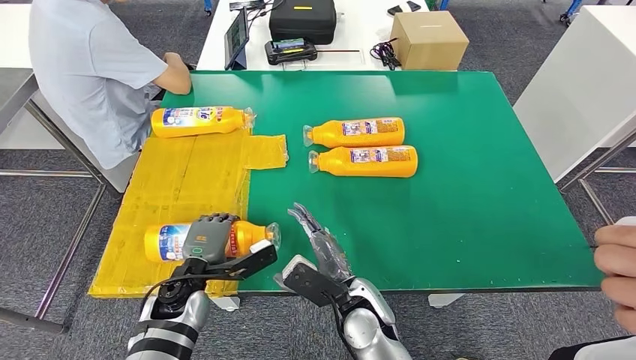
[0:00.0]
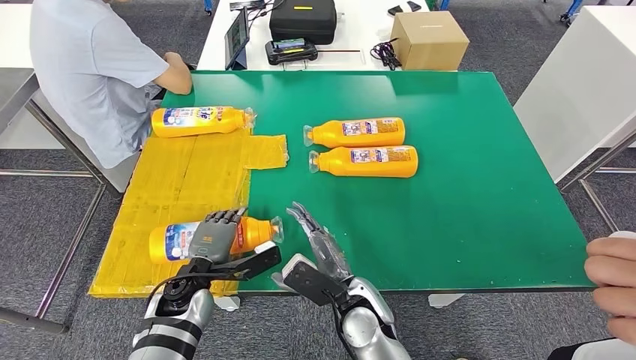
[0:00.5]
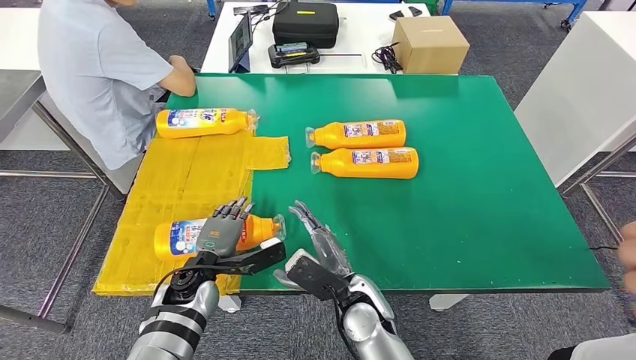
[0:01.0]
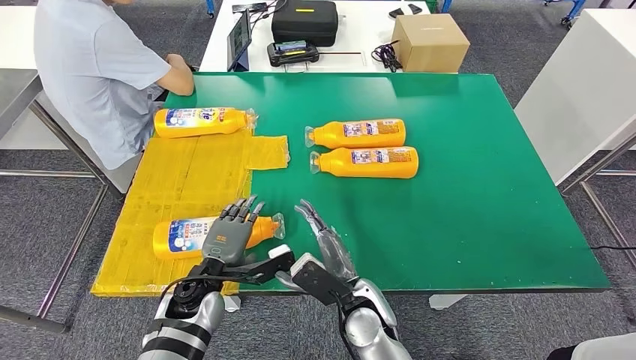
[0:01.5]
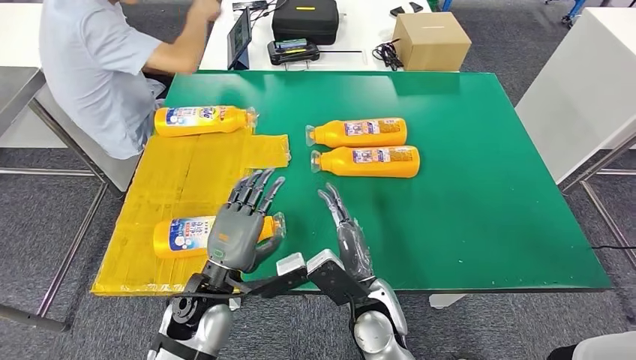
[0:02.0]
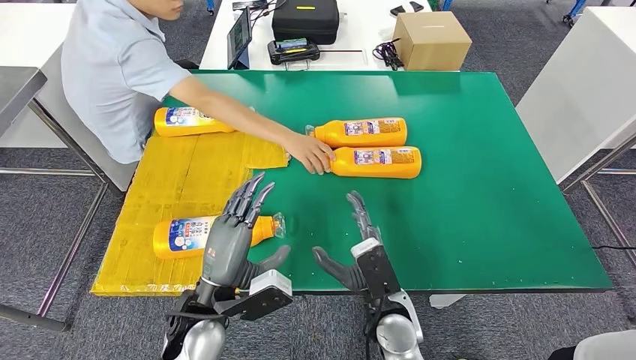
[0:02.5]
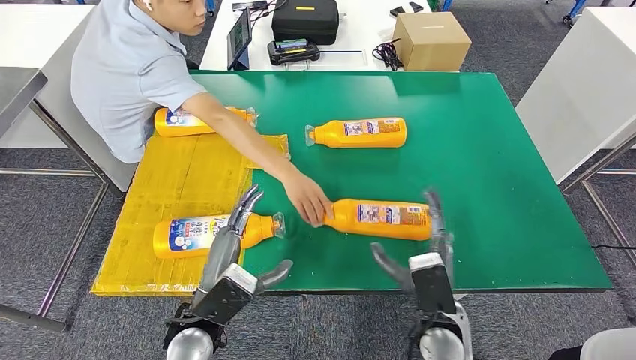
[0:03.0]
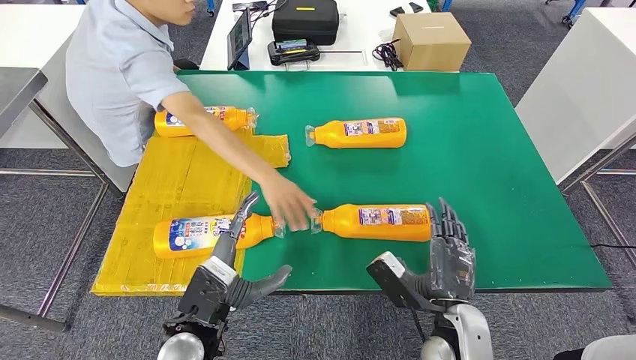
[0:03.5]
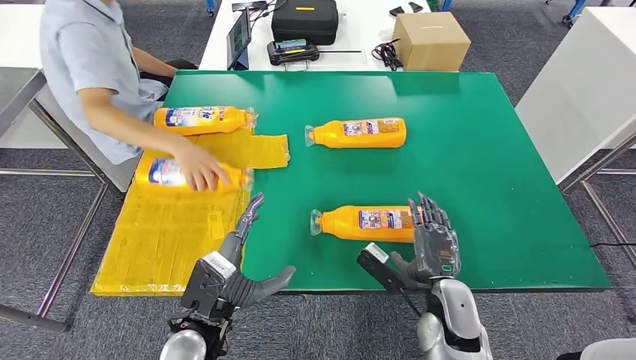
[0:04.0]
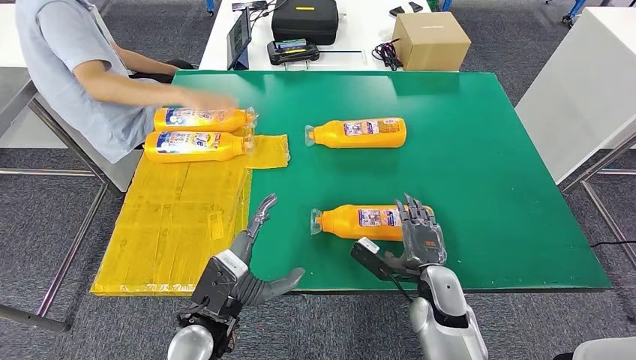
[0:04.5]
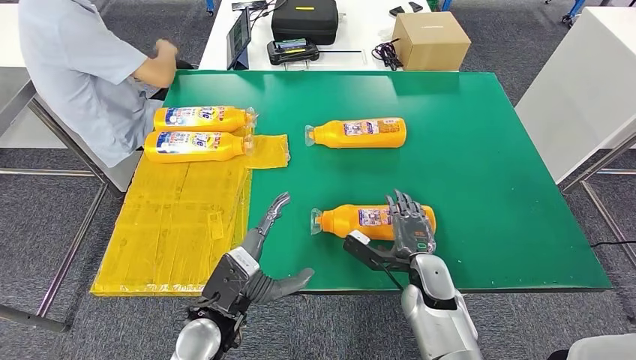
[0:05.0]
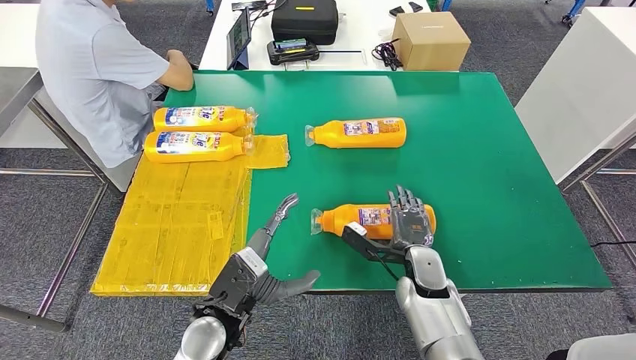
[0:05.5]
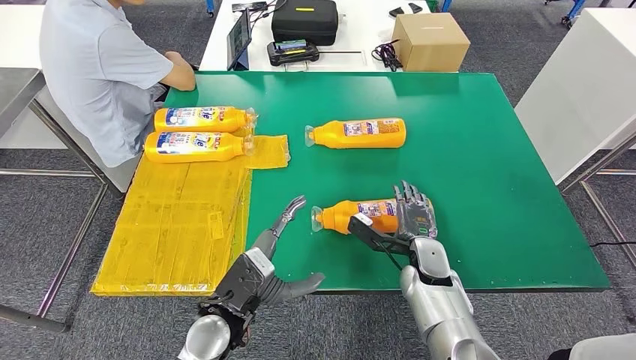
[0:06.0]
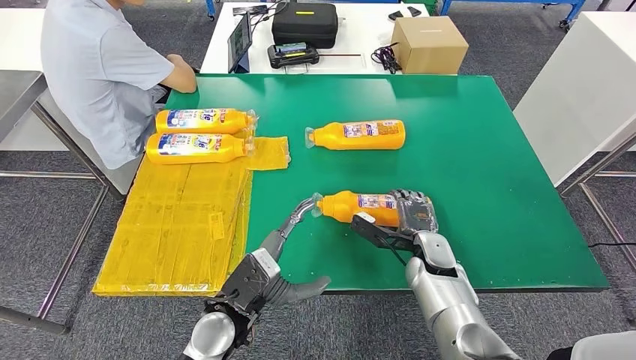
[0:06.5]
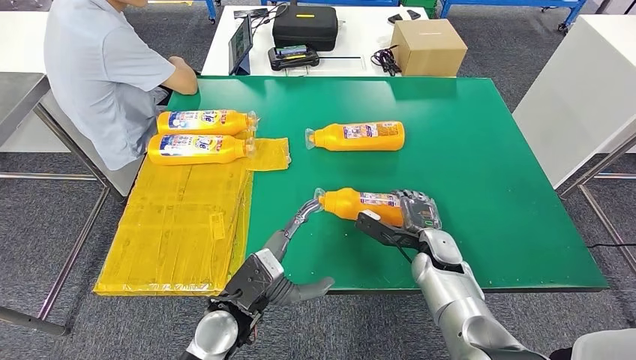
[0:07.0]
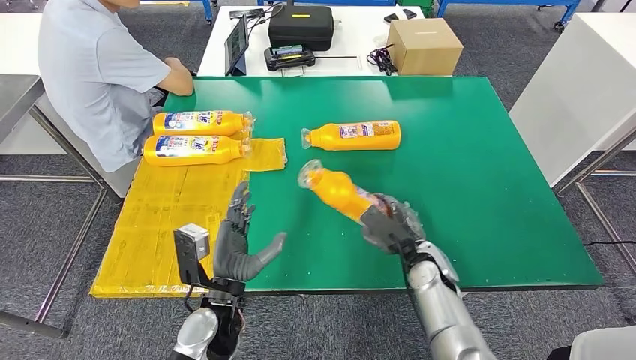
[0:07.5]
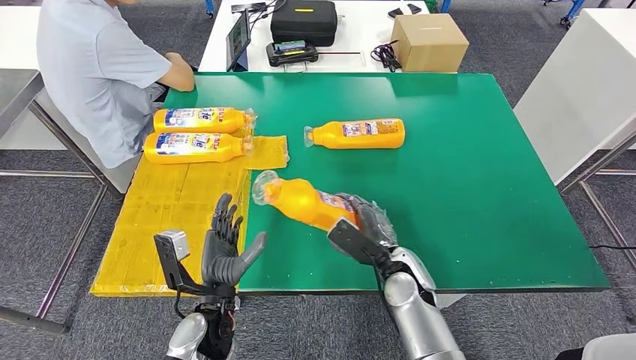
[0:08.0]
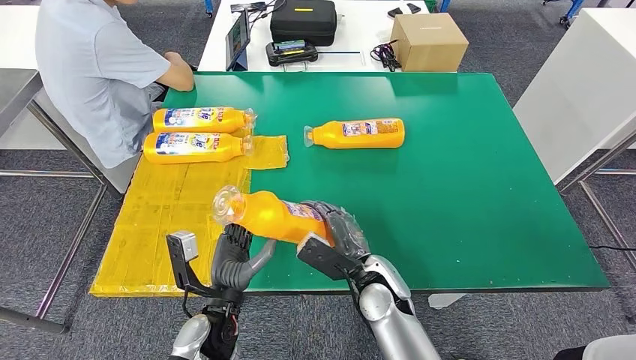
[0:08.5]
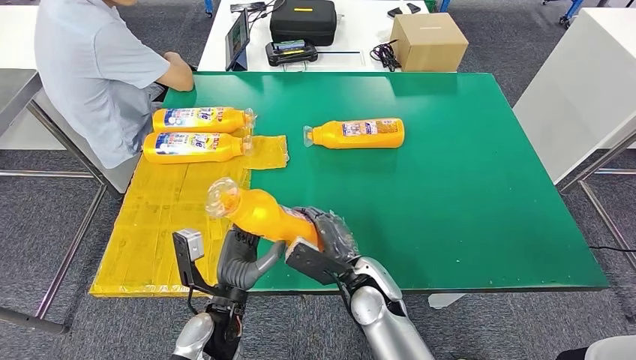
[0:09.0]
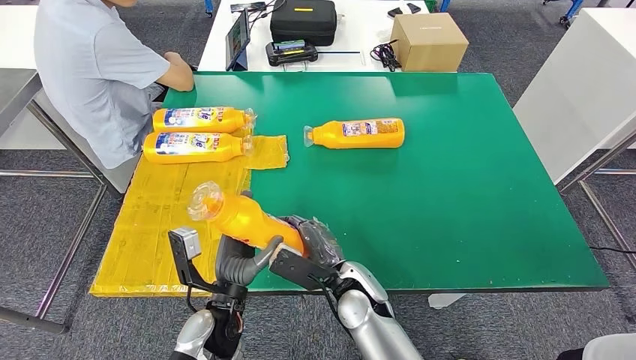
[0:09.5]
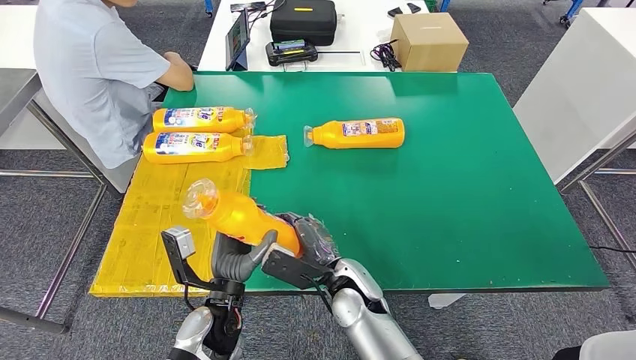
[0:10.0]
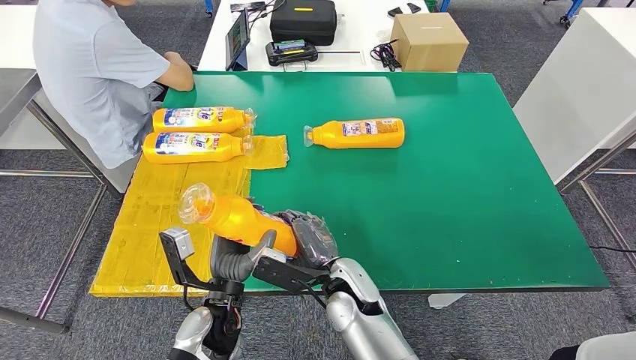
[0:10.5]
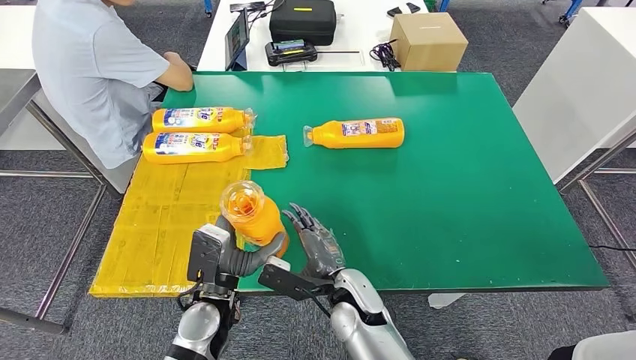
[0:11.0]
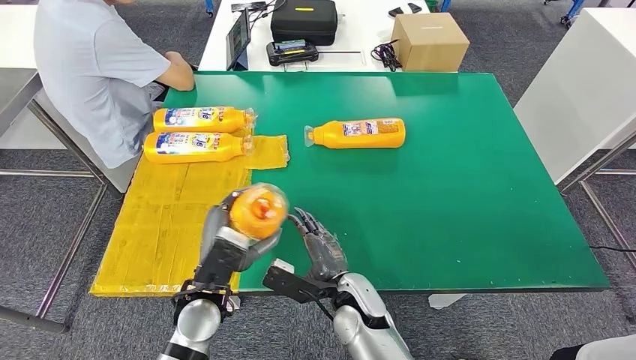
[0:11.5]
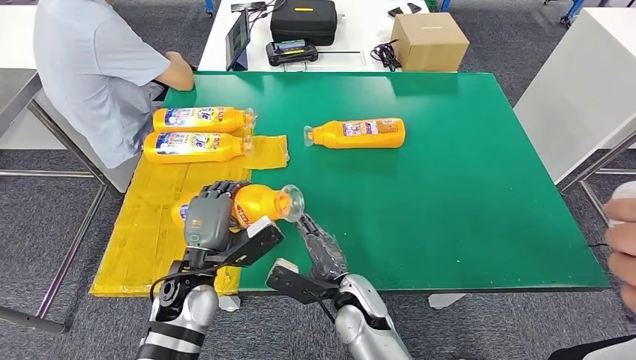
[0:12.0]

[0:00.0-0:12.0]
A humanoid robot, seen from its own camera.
Step, 0:00.0 to 0:02.0: Flip the bottle to face forward.
Step, 0:05.5 to 0:07.5: Pick up the bottle from the table.
0:04.0 to 0:06.0: The right hand shifts approximately 10 cm forward.
0:06.0 to 0:08.0: The right hand is displaced to the left by roughly 5 cm.
0:08.0 to 0:10.0: The right hand goes approximately 10 cm to the left.
0:10.0 to 0:12.0: The left hand shifts by approximately 10 cm.

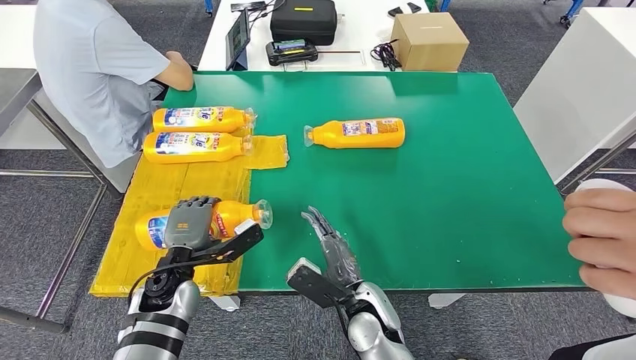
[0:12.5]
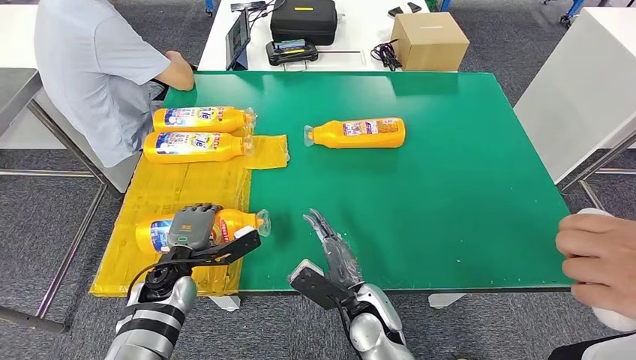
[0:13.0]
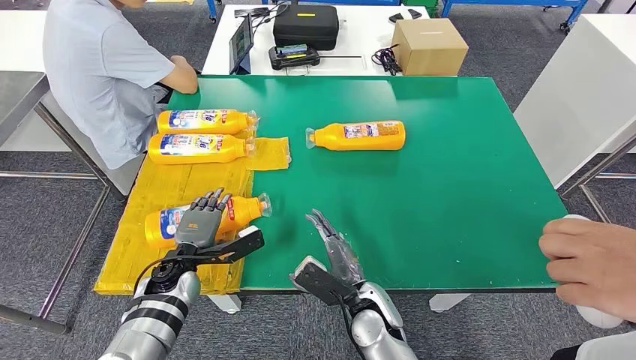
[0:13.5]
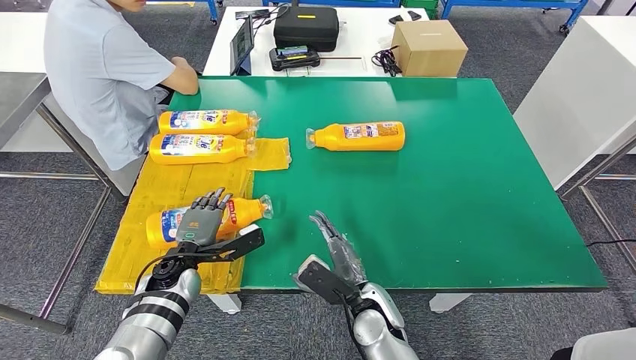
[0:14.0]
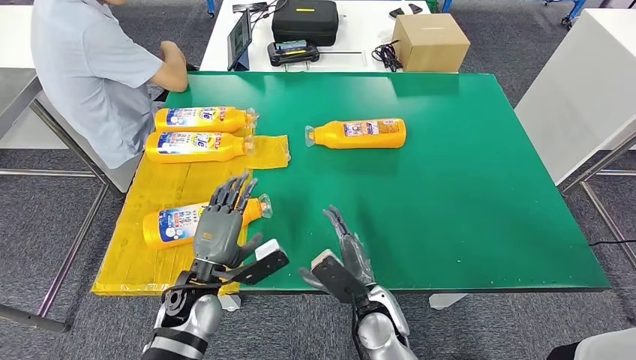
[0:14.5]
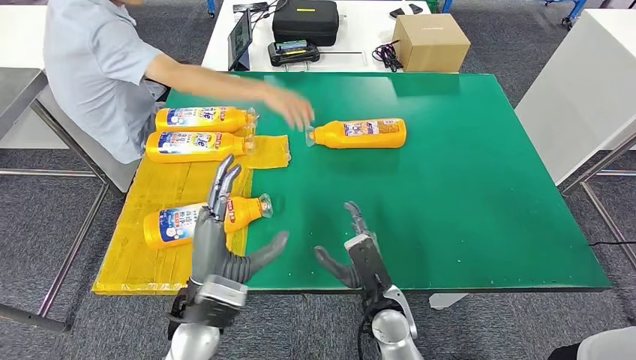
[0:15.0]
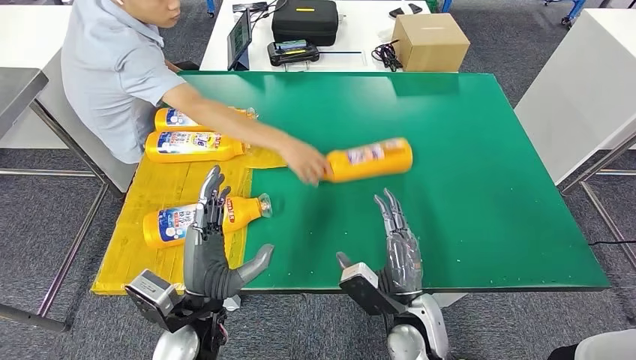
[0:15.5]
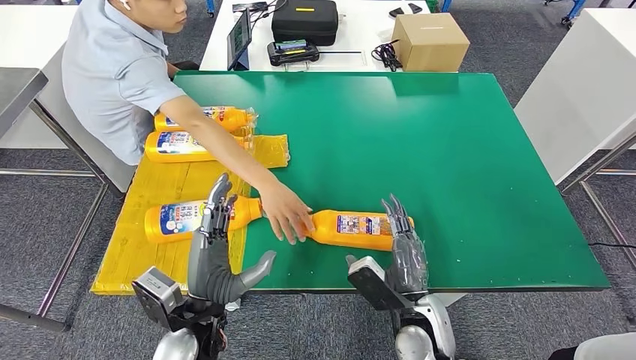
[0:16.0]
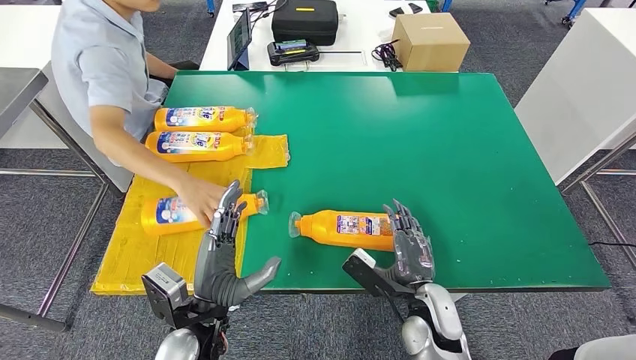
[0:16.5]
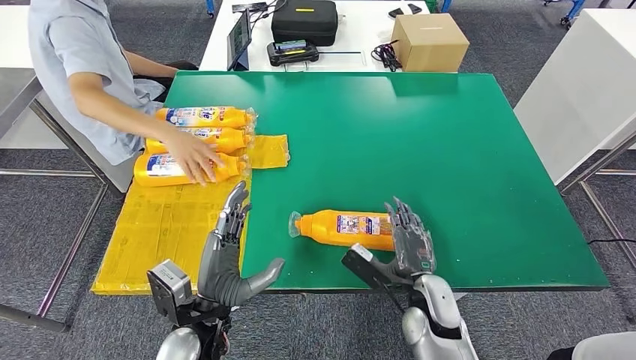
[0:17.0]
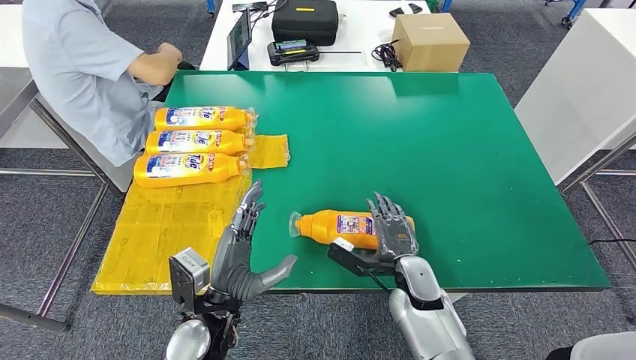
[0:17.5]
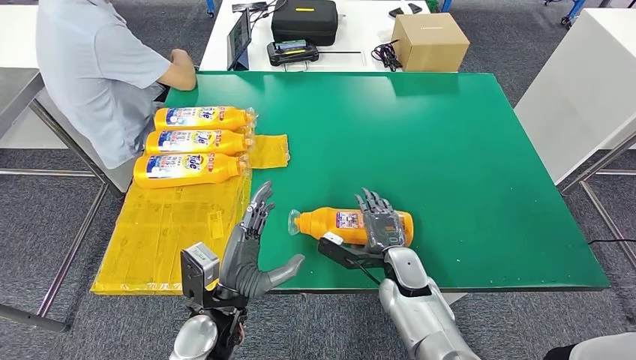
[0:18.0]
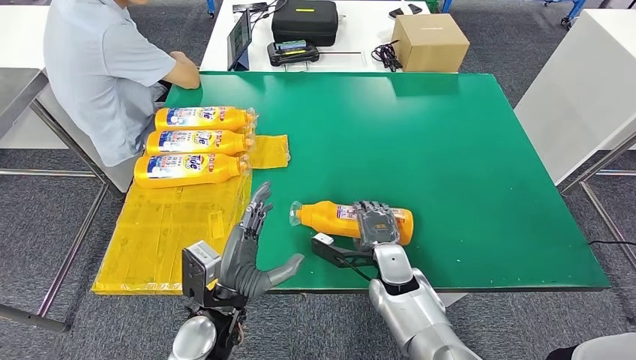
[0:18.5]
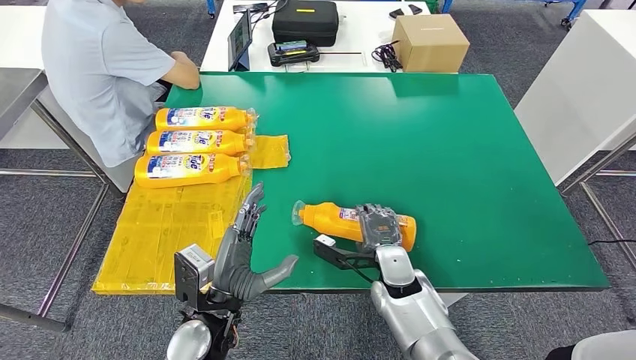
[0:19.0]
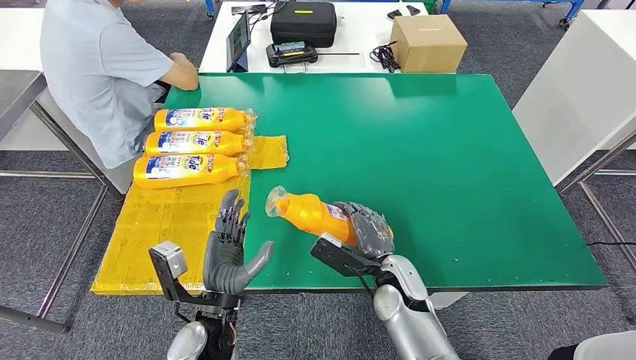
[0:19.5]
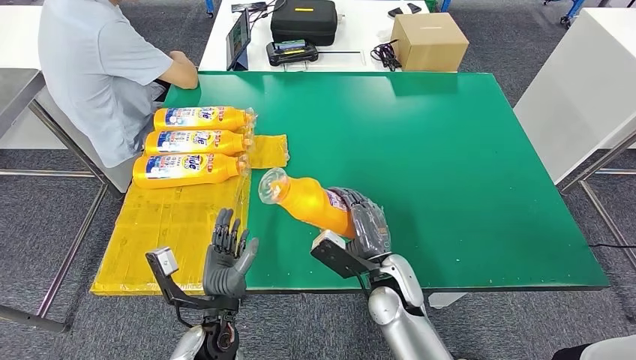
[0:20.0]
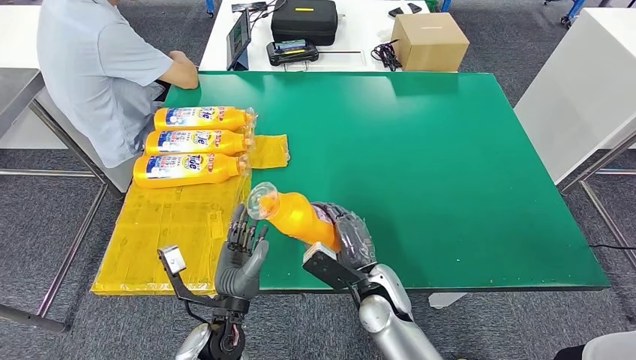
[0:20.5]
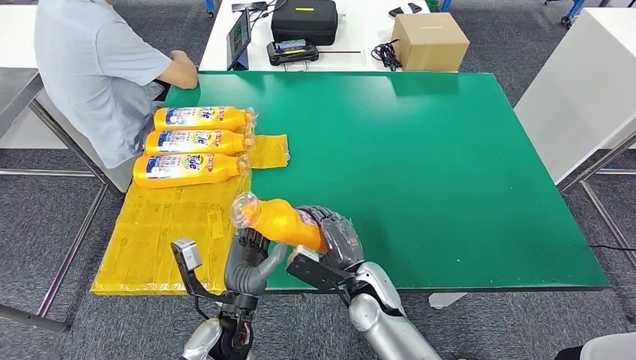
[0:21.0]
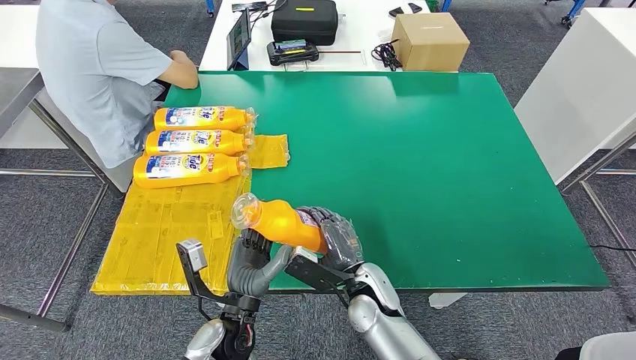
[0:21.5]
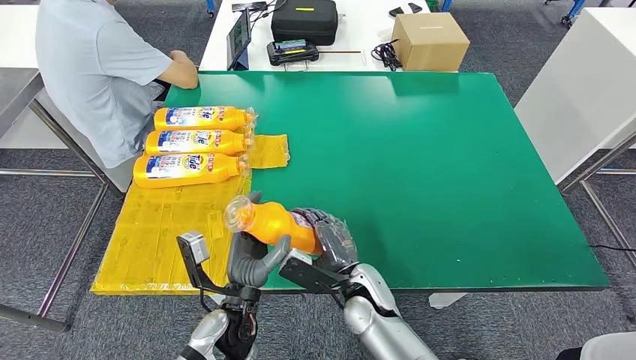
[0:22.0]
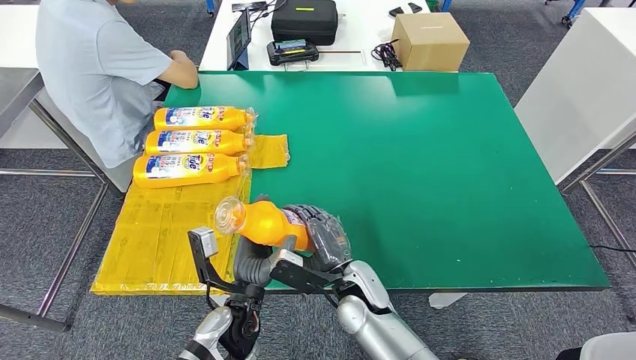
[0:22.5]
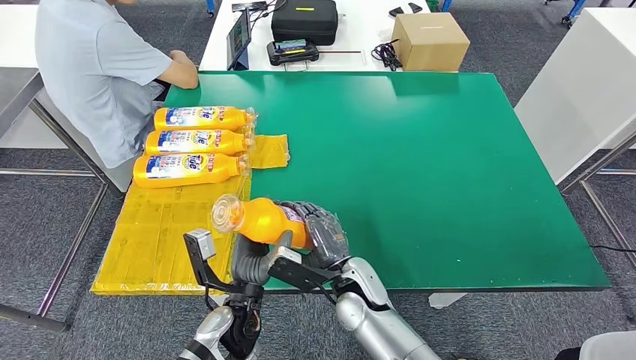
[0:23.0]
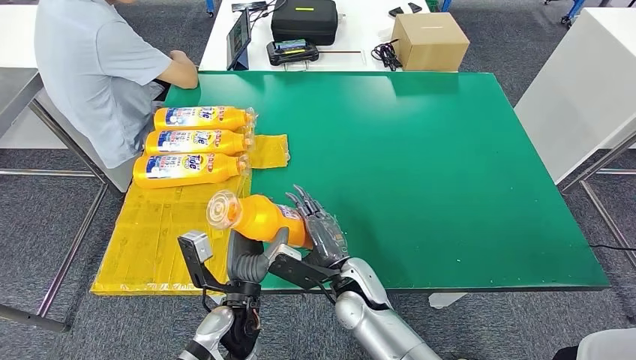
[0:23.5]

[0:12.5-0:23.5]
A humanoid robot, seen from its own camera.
Step, 0:17.0 to 0:19.5: Pick up the bottle from the table.
0:12.5 to 0:14.5: The left hand shifts by approximately 5 cm.
0:16.0 to 0:18.0: The right hand shifts approximately 10 cm forward.
0:18.0 to 0:20.0: The right hand ends up some 5 cm from where it was.
0:20.0 to 0:23.5: The hands move only a little.
